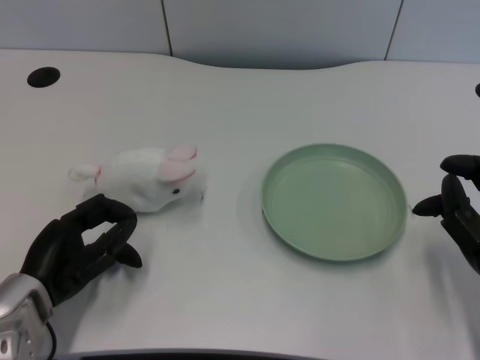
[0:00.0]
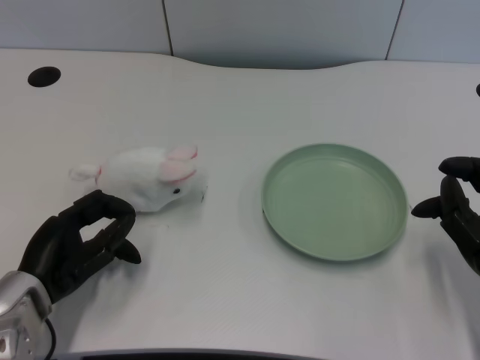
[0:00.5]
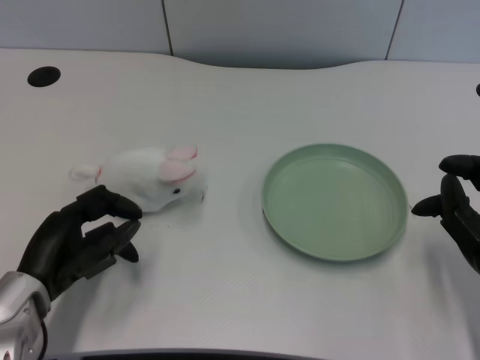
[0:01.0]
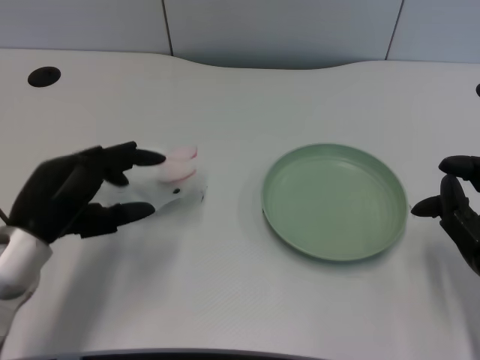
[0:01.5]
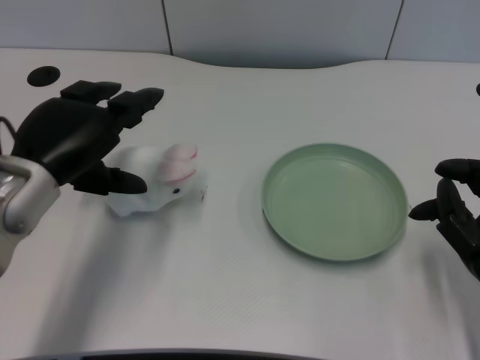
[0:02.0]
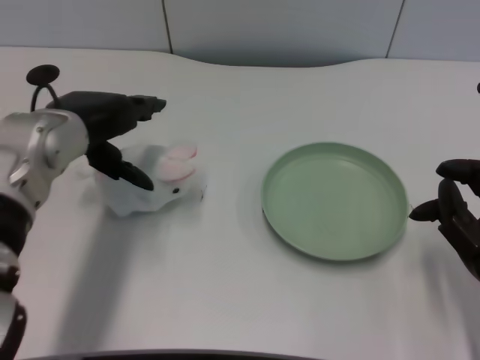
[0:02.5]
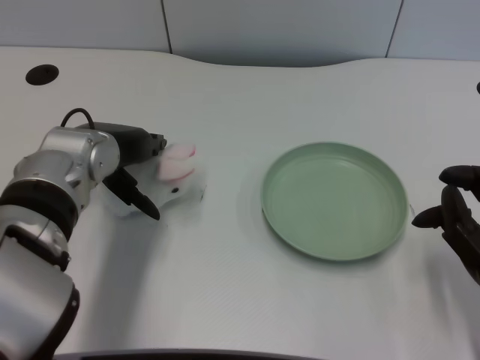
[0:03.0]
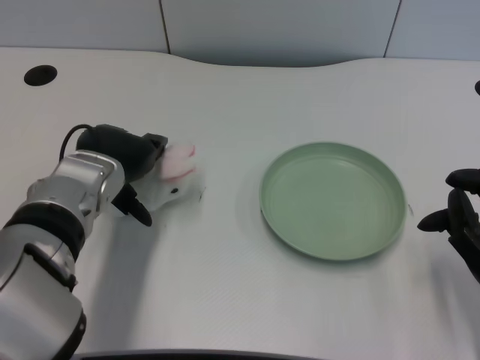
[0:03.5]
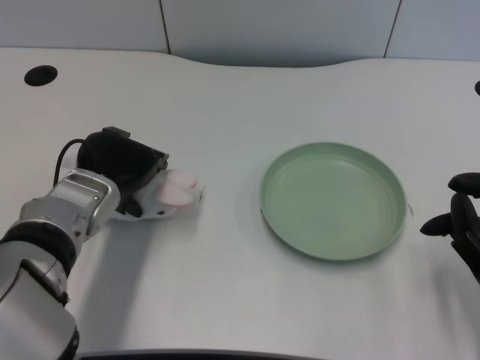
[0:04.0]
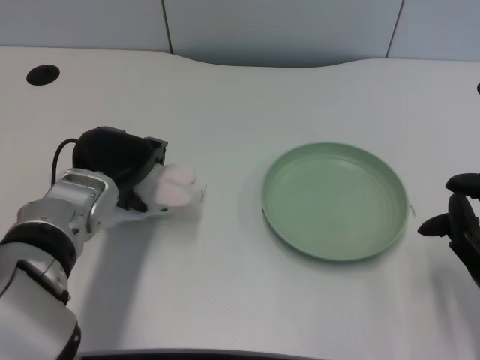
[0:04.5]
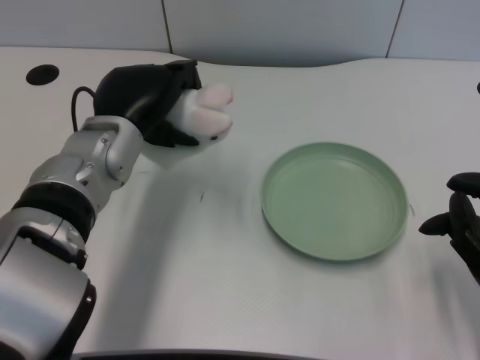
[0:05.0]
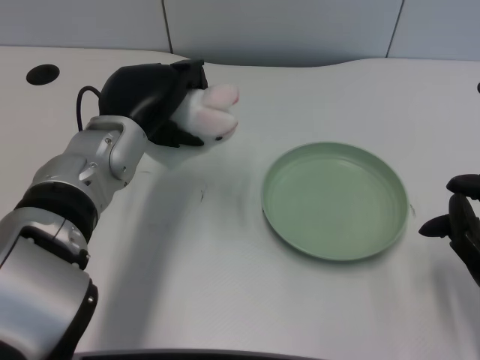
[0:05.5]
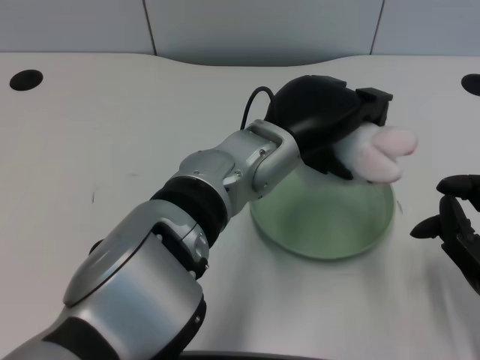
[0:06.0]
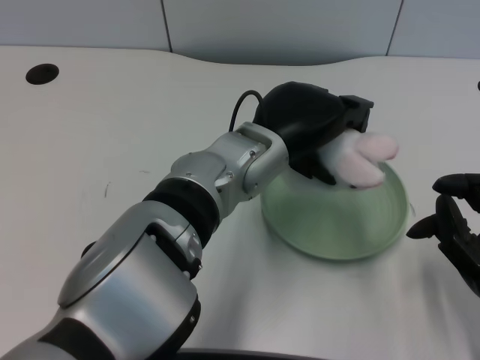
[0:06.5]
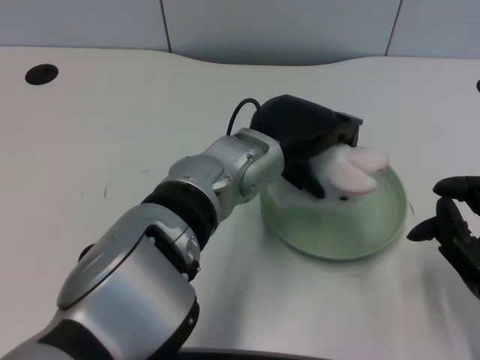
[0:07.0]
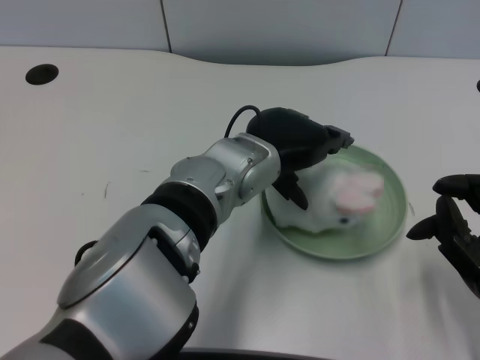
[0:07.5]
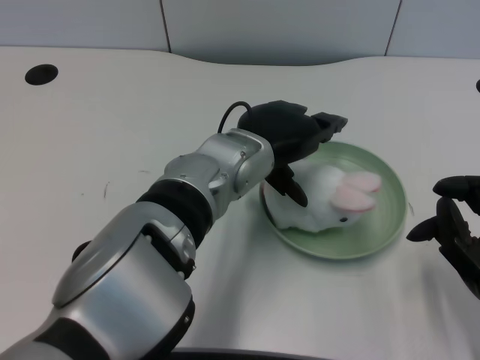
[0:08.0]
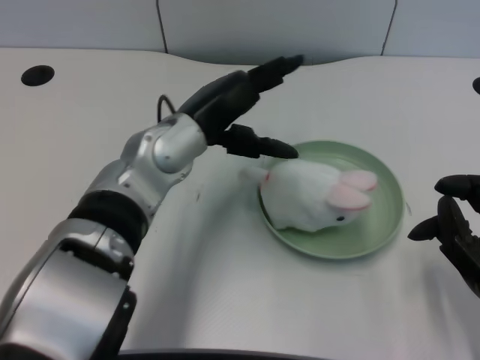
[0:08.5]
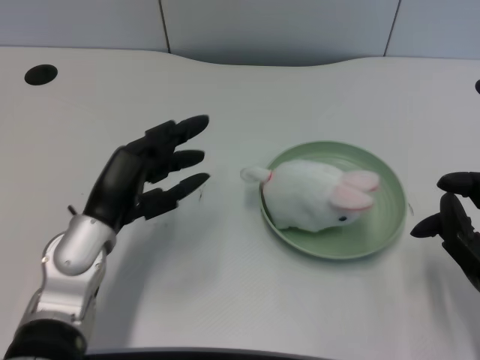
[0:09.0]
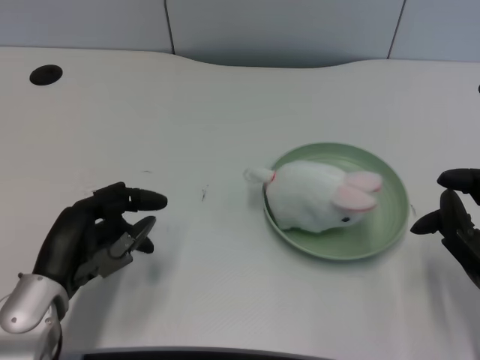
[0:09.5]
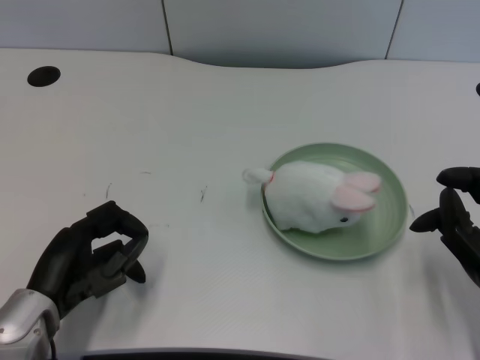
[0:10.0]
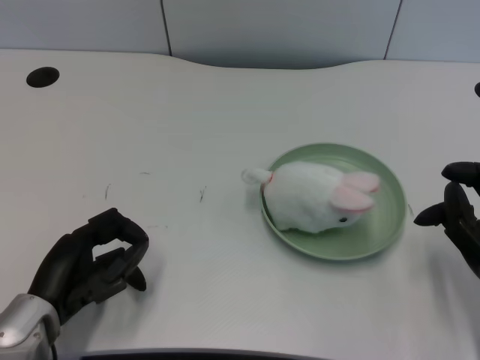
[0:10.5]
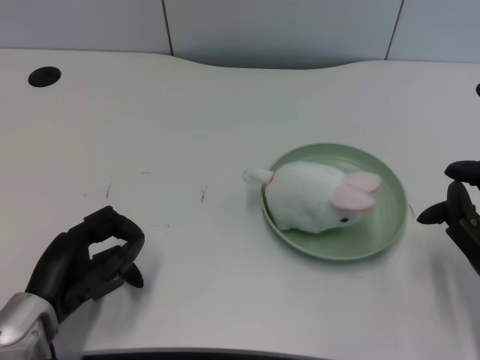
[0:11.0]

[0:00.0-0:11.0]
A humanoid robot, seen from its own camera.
Task of the whole recording: pick up the rabbit doll from the table and place it on the plate.
Step, 0:01.0 to 0:04.5: Grasp the rabbit doll with the left gripper.
Step, 0:05.0 to 0:07.5: Place the rabbit doll into the plate with the left gripper.
0:02.0 to 0:03.5: The left hand is displaced to the right by approximately 5 cm.
0:05.5 to 0:07.5: The left hand moves to the right, approximately 10 cm.
0:07.5 to 0:09.0: The left hand moves to the left and downward, about 20 cm.
0:09.0 to 0:11.0: The left hand goes approximately 10 cm backward and to the left.

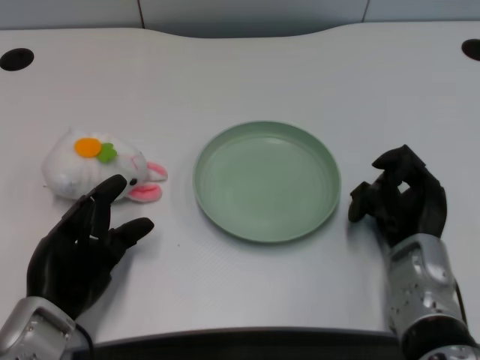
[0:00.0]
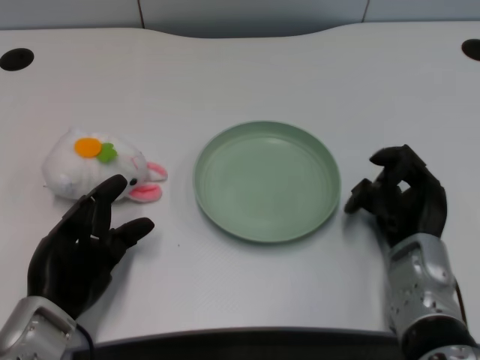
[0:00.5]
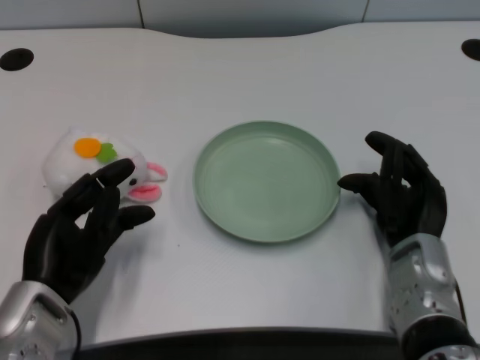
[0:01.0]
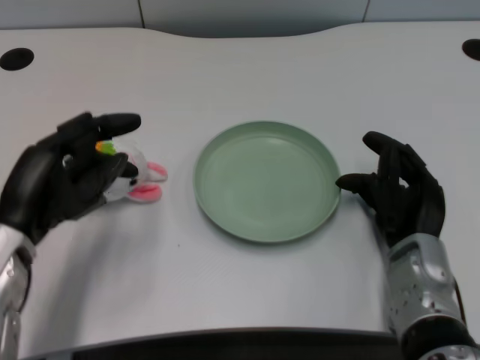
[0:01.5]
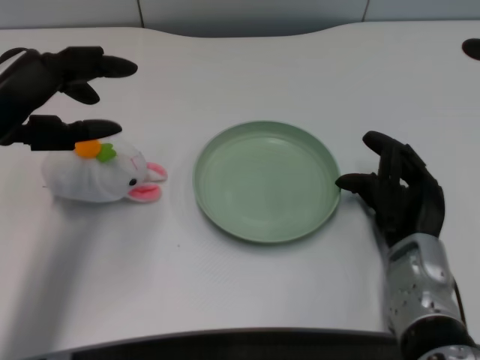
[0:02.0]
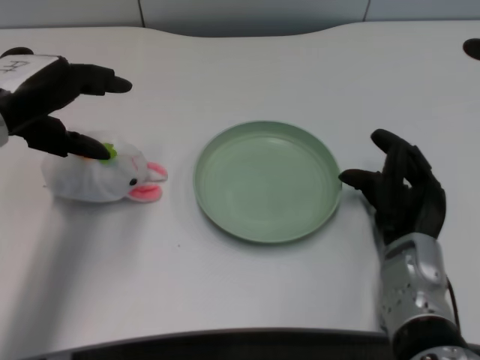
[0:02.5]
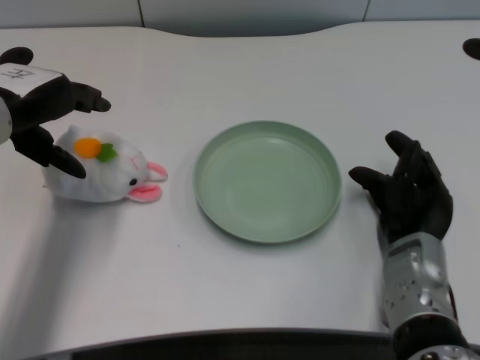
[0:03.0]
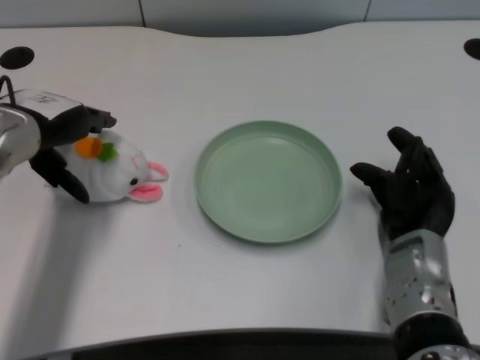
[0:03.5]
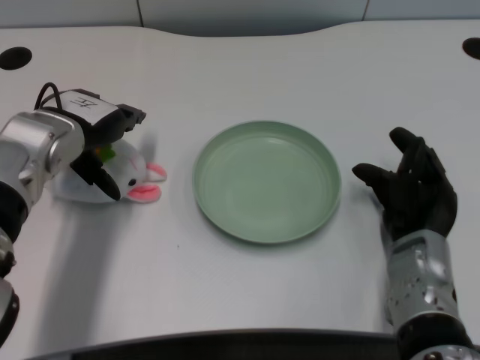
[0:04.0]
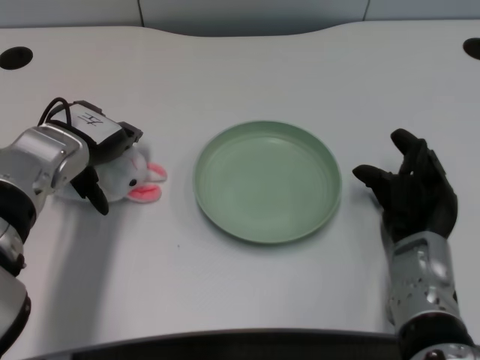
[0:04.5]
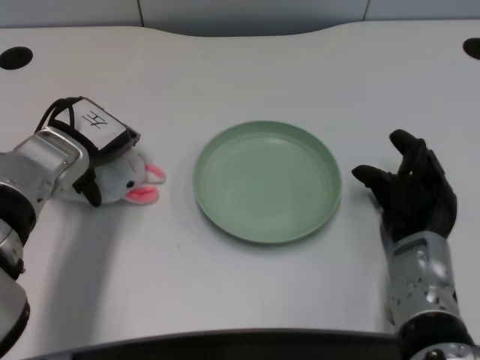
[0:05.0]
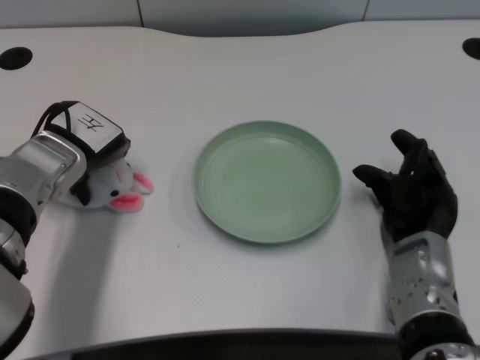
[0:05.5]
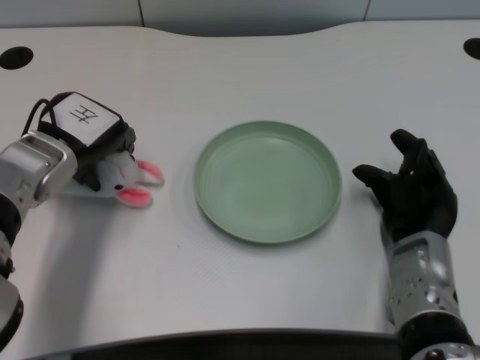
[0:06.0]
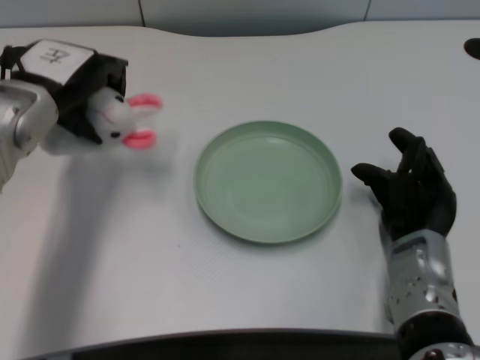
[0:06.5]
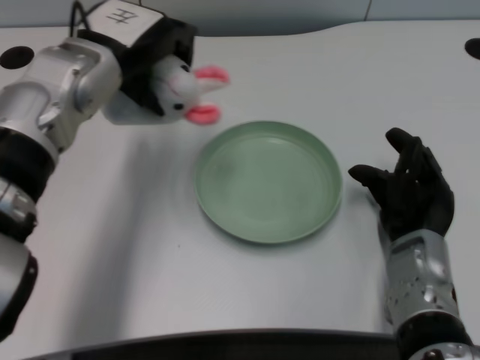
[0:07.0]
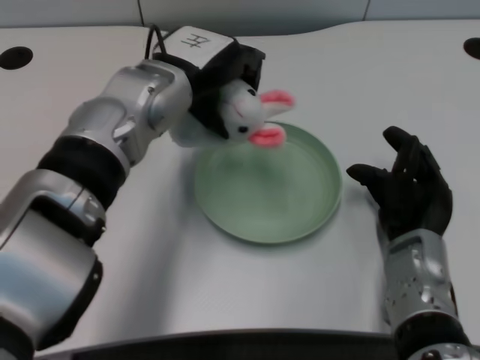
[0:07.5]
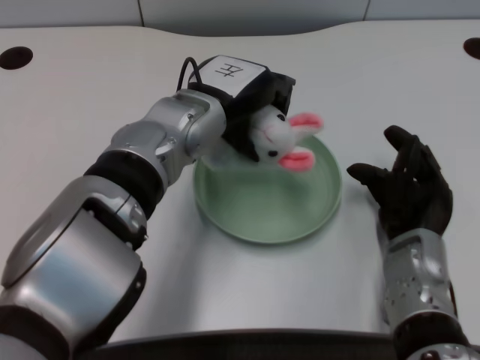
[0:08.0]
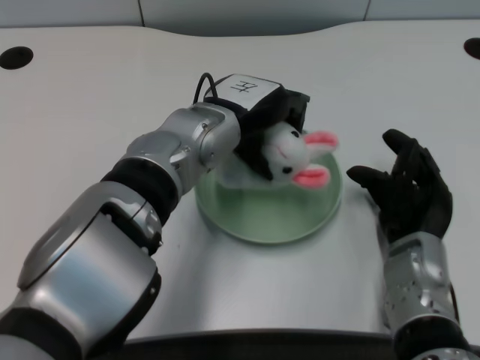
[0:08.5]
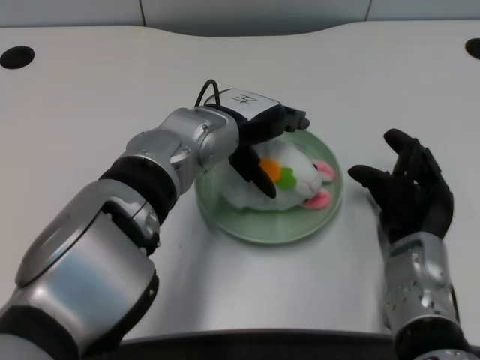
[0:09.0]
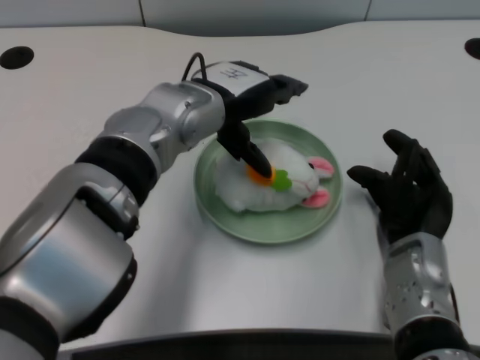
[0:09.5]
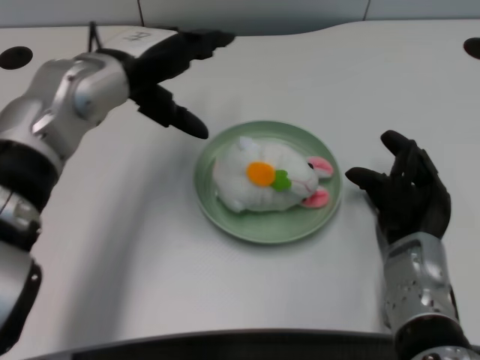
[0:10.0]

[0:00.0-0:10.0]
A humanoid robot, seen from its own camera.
Task of the whole recording: pick up the rabbit doll from the table and place it on the plate.
Step, 0:01.0 to 0:05.5: Grasp the rabbit doll with the left gripper.
Step, 0:06.5 to 0:09.0: Place the rabbit doll into the plate with the left gripper.
0:02.0 to 0:04.0: The left hand shifts about 10 cm forward and downward.
0:06.0 to 0:08.0: The left hand is displaced to the right by about 15 cm.
0:08.0 to 0:10.0: The left hand shifts about 10 cm to the left.

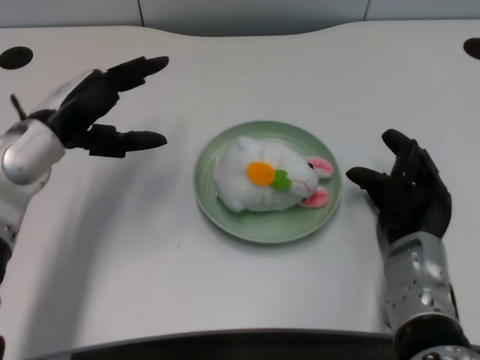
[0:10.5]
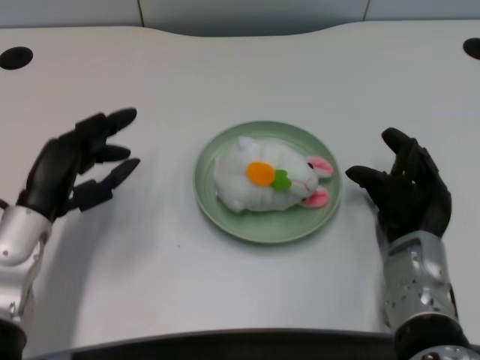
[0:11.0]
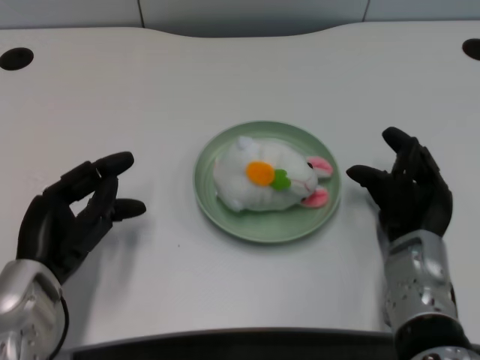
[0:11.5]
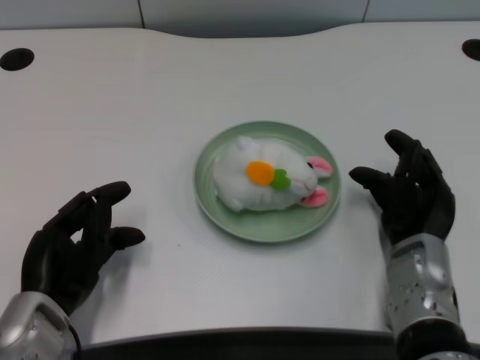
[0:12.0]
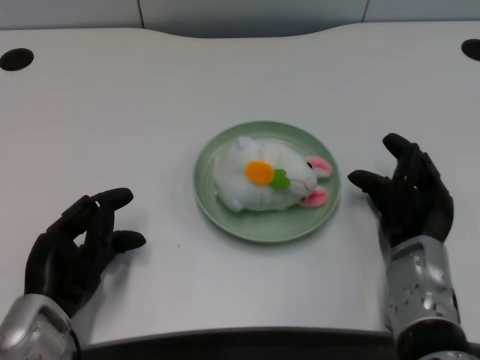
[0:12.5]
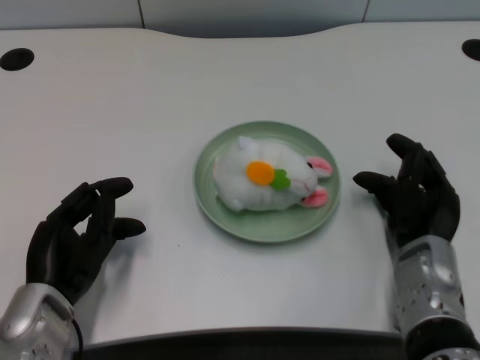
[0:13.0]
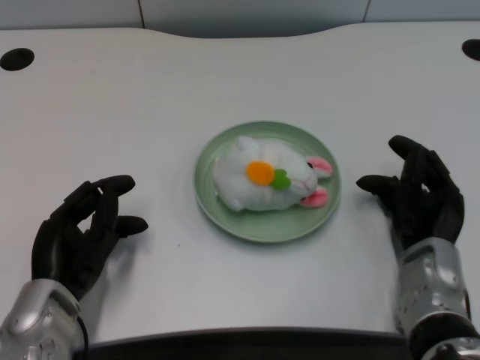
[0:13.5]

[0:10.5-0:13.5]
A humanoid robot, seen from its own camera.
Task of the whole recording: pick up the rabbit doll from the table and place it on the plate.
0:10.5 to 0:12.0: The left hand is displaced backward and downward by about 15 cm.
0:12.0 to 0:13.5: There are only small adjustments of the hands.

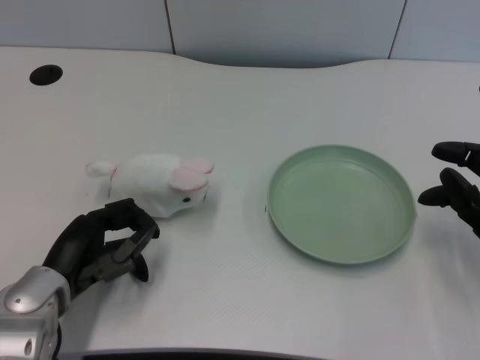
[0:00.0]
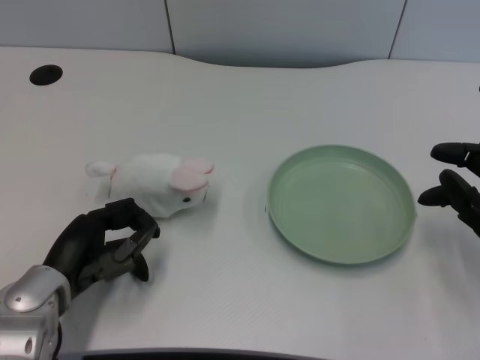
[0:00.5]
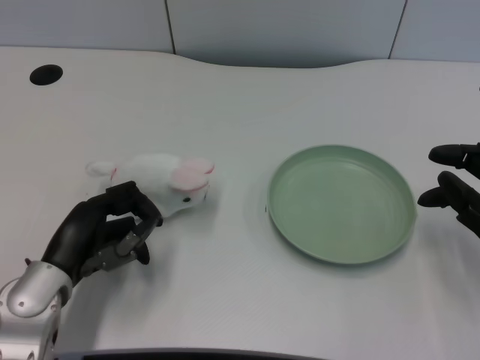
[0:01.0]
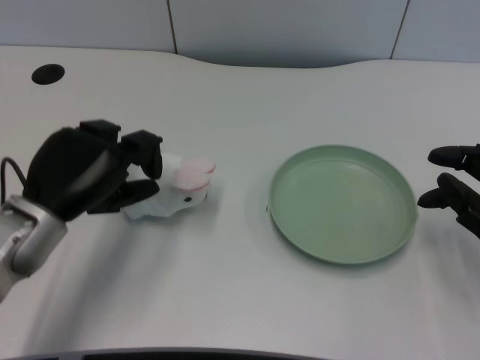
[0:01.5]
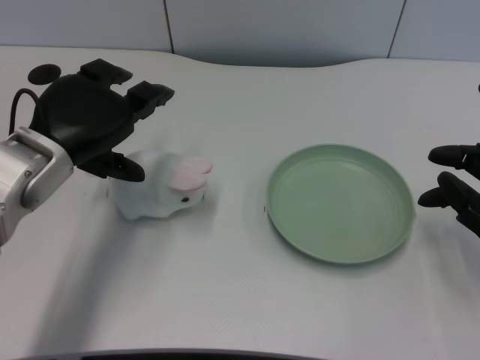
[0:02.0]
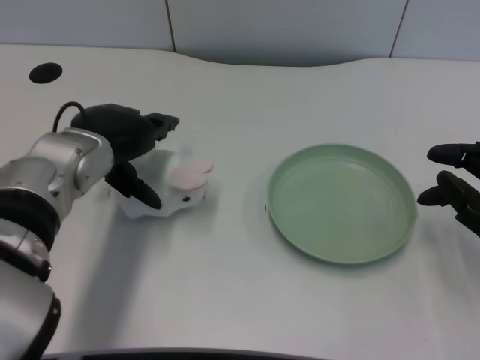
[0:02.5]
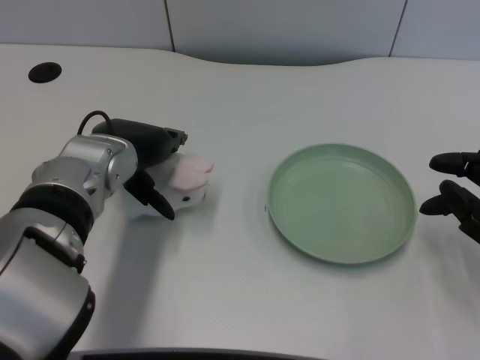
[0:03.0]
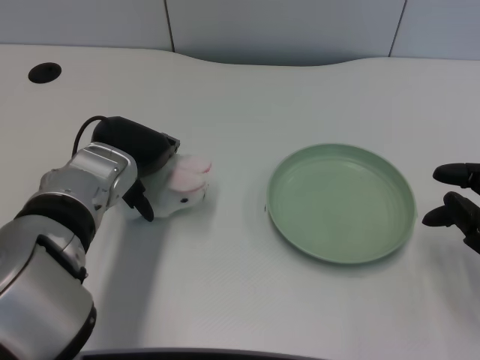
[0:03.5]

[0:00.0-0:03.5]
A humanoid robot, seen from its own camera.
Task of the whole recording: pick up the rabbit doll from the table and place it on the plate.
0:02.0 to 0:03.5: The left hand shifts some 5 cm to the right.
